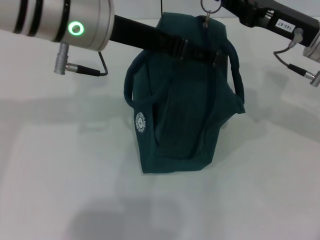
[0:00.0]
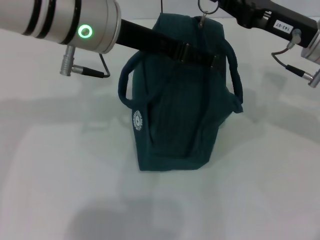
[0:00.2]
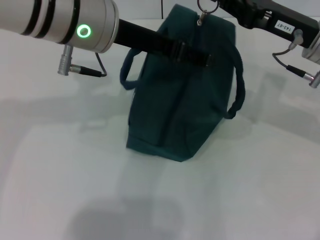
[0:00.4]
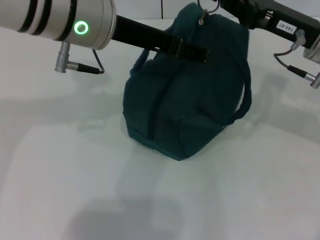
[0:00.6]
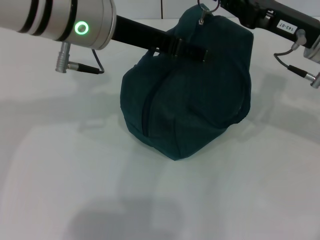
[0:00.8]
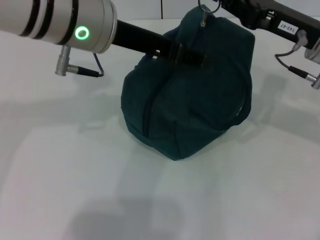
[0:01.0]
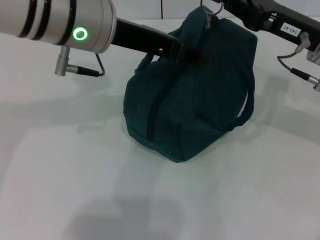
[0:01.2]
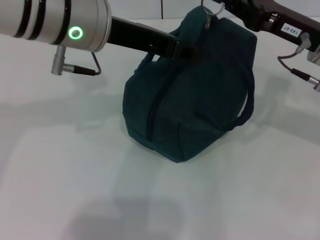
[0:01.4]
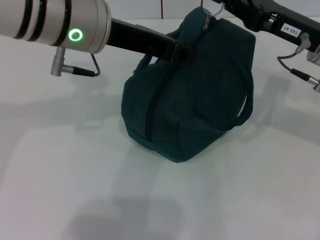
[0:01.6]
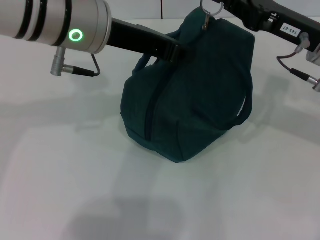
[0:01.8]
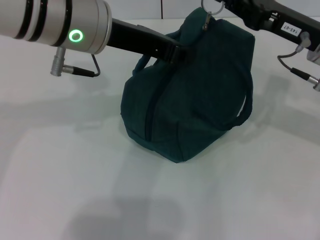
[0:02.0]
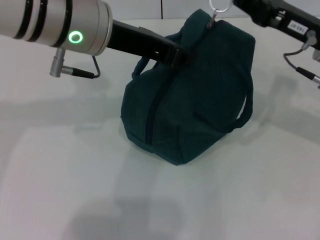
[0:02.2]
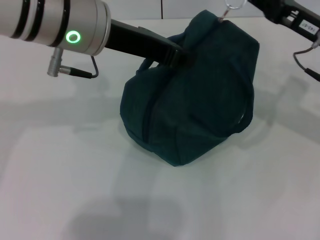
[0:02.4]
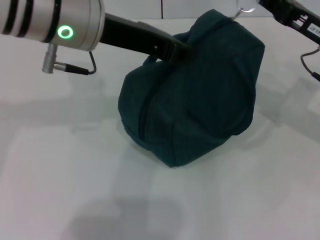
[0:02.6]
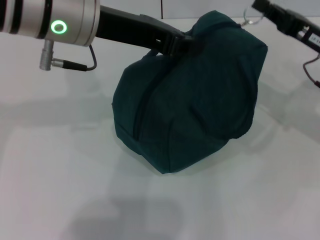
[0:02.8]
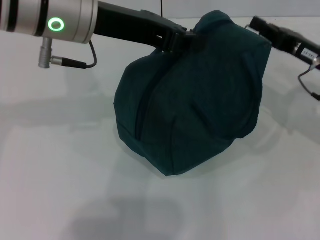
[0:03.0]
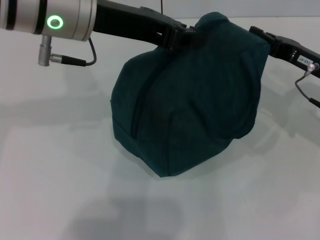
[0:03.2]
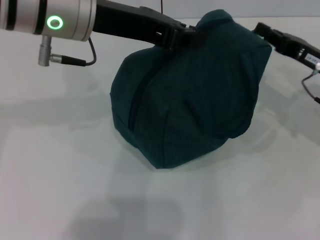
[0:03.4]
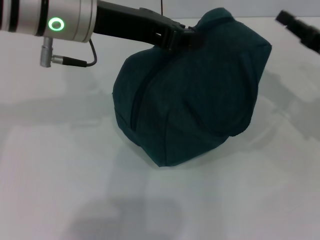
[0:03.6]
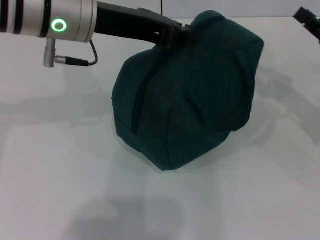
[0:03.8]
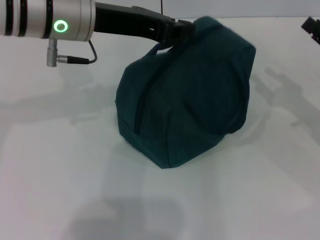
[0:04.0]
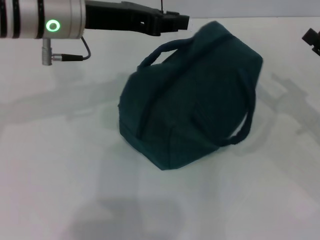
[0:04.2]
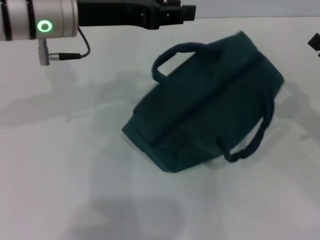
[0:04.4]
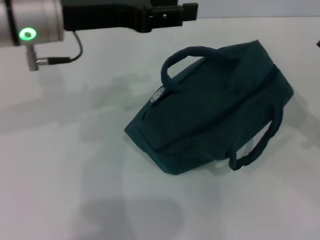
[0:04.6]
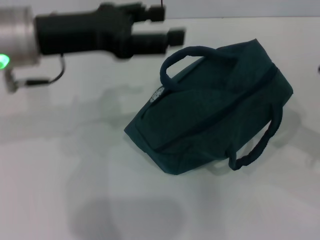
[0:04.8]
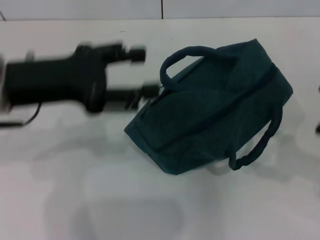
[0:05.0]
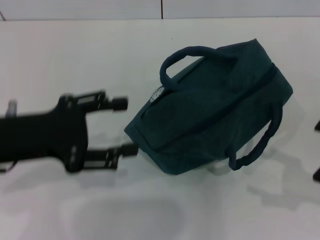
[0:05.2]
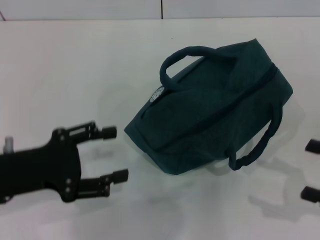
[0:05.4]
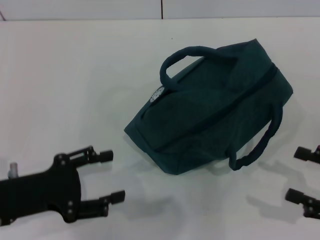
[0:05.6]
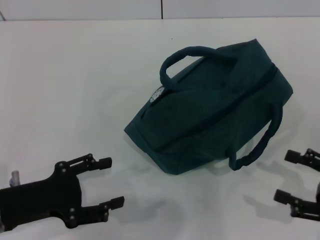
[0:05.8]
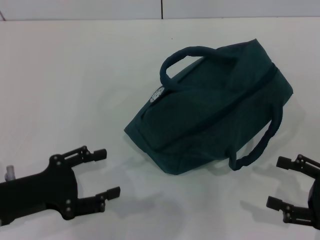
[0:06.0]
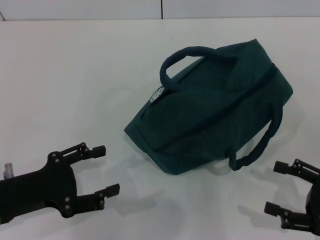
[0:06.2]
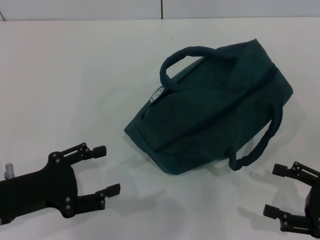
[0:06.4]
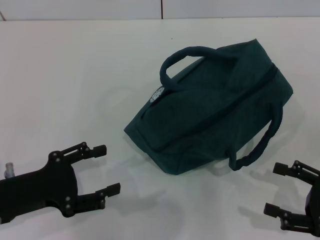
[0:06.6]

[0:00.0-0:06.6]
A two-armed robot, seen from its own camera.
Step, 0:00.0 to 0:03.4: Zip up the lunch bag with your right hand.
Step, 0:03.6 to 0:04.0: Hold the lunch bag with your left hand.
0:00.0 to 0:01.6: The left gripper closes.
0:01.6 to 0:03.2: The right gripper is displaced downward by approximately 5 cm; the left gripper closes up.
0:03.2 to 0:05.0: The right gripper heads backward and to the right, covering about 15 cm, and opens its fingers, while the left gripper travels to the left, downward and backward by some 15 cm, and opens up.
0:05.0 to 0:06.6: The right gripper travels downward by about 10 cm. The left gripper heads downward and backward, covering some 15 cm.

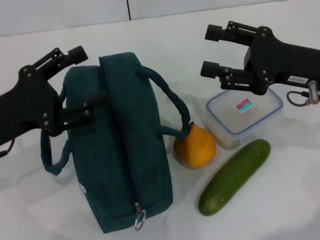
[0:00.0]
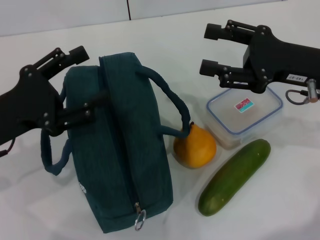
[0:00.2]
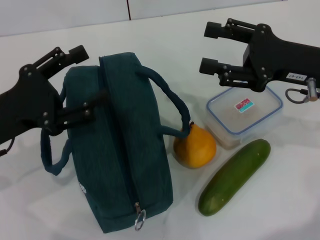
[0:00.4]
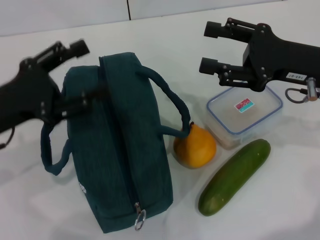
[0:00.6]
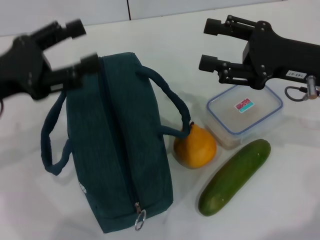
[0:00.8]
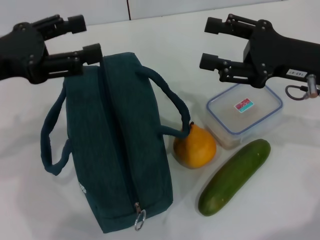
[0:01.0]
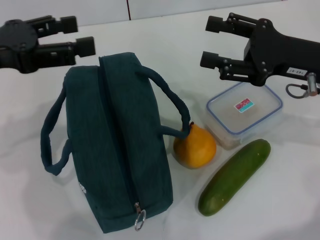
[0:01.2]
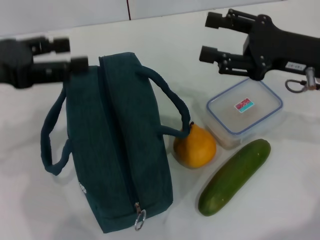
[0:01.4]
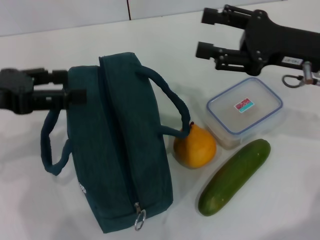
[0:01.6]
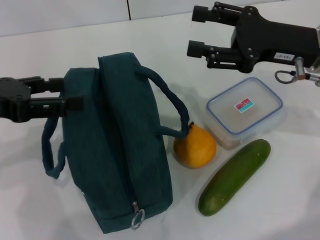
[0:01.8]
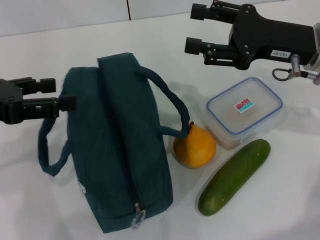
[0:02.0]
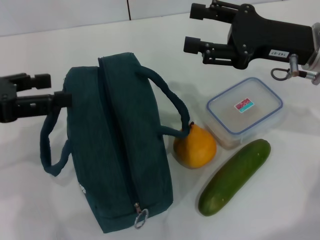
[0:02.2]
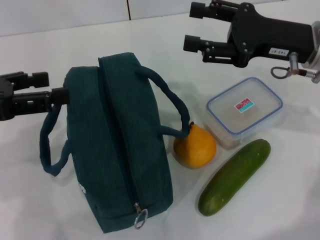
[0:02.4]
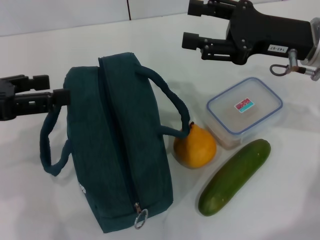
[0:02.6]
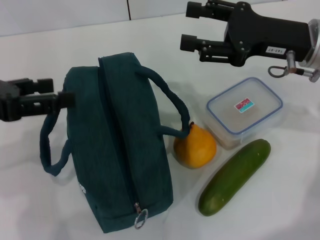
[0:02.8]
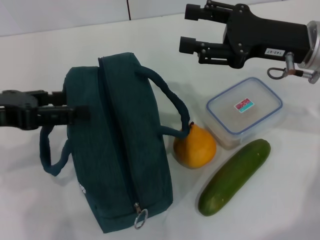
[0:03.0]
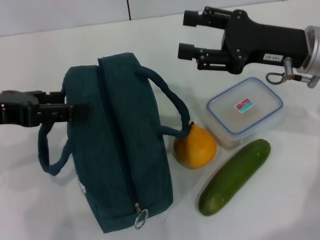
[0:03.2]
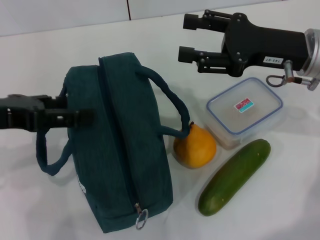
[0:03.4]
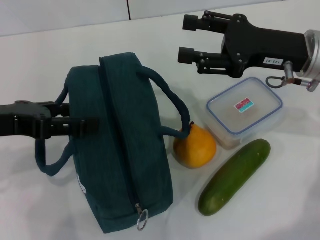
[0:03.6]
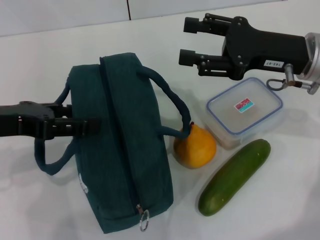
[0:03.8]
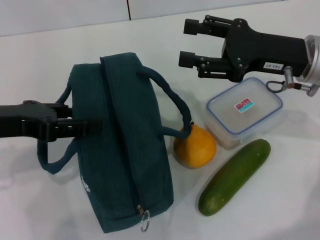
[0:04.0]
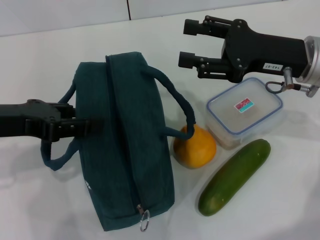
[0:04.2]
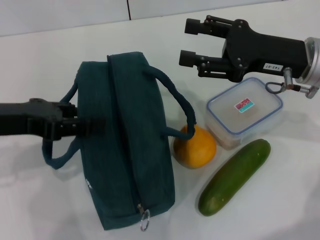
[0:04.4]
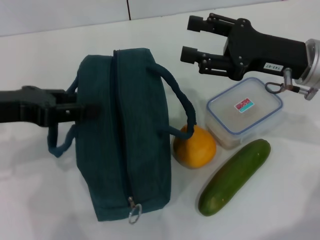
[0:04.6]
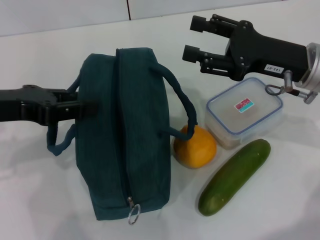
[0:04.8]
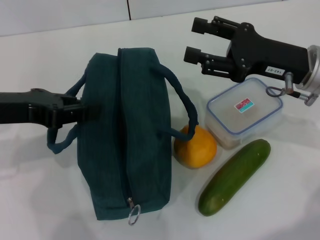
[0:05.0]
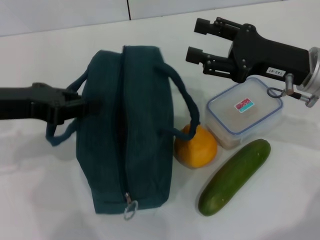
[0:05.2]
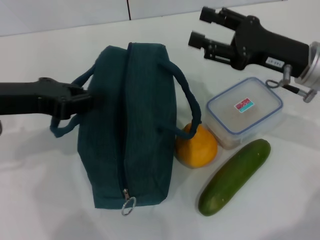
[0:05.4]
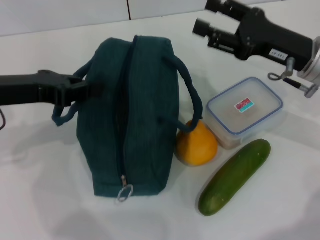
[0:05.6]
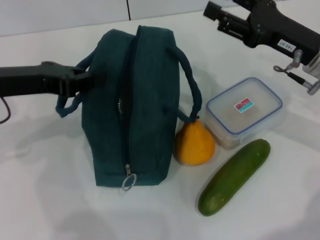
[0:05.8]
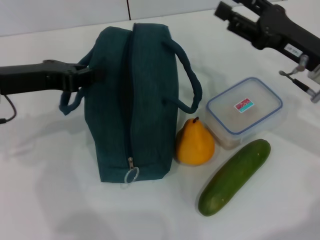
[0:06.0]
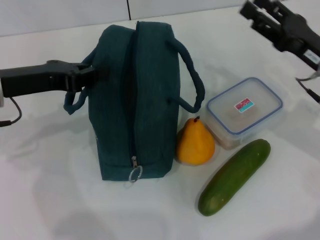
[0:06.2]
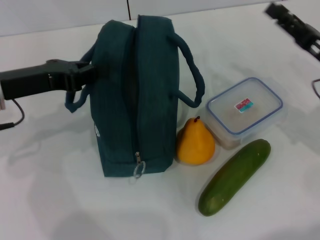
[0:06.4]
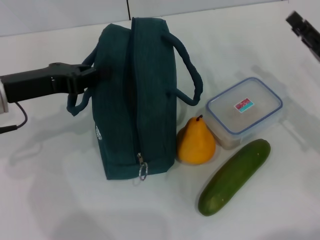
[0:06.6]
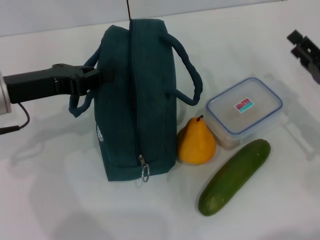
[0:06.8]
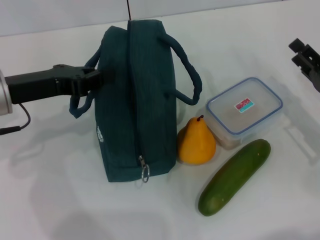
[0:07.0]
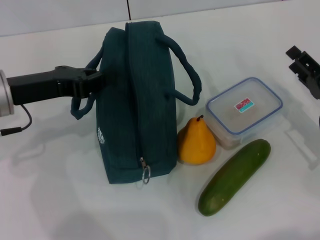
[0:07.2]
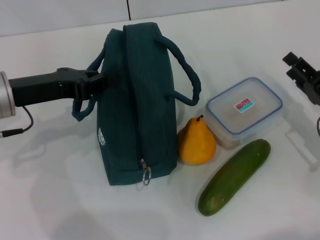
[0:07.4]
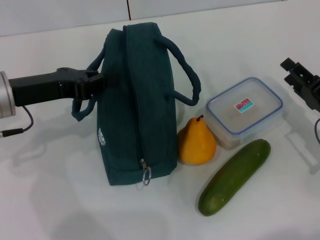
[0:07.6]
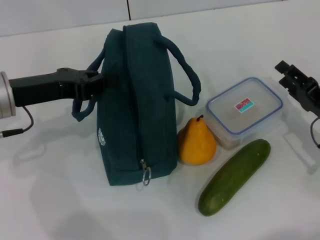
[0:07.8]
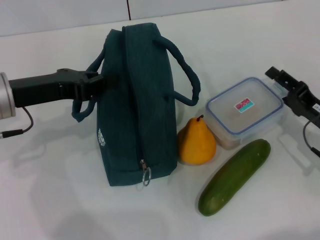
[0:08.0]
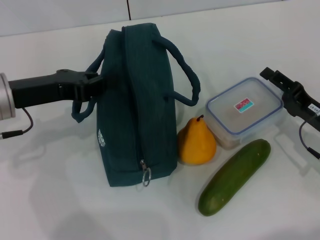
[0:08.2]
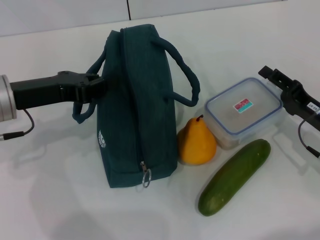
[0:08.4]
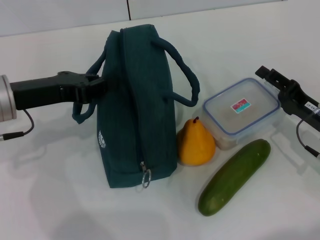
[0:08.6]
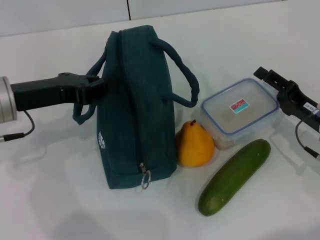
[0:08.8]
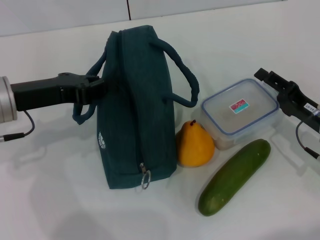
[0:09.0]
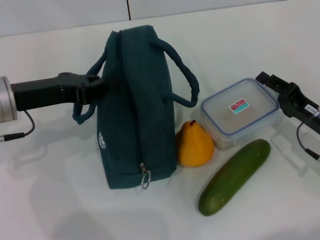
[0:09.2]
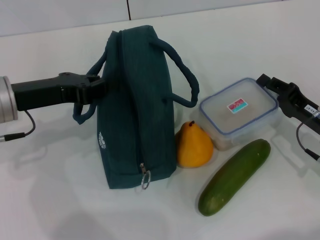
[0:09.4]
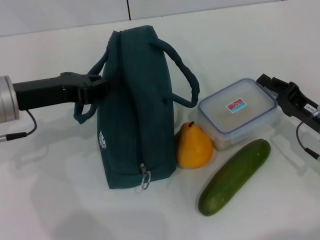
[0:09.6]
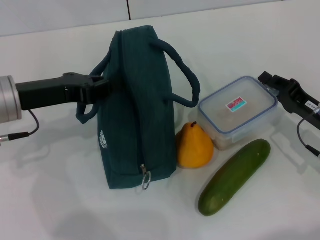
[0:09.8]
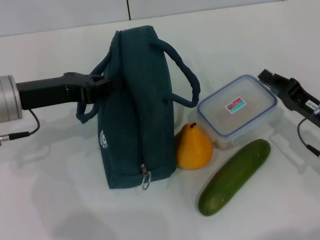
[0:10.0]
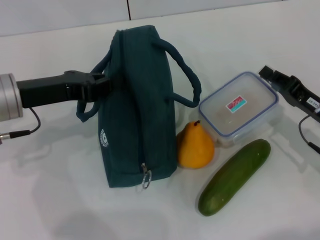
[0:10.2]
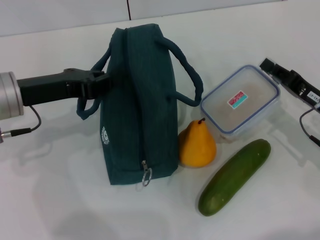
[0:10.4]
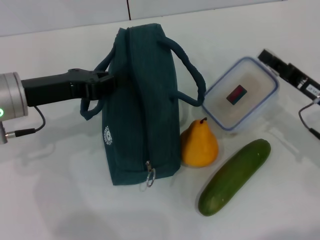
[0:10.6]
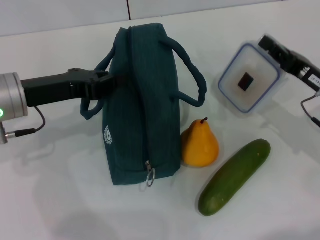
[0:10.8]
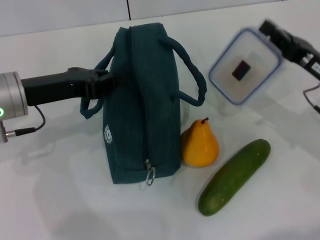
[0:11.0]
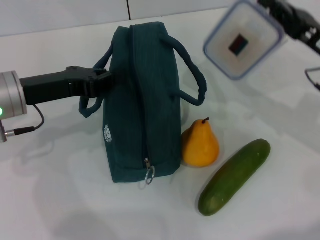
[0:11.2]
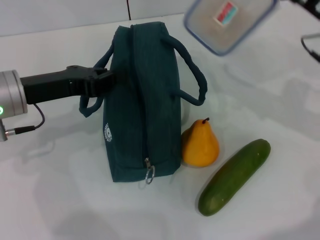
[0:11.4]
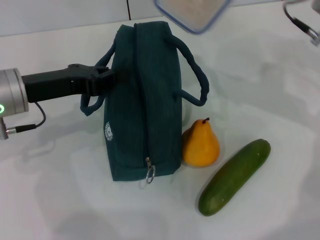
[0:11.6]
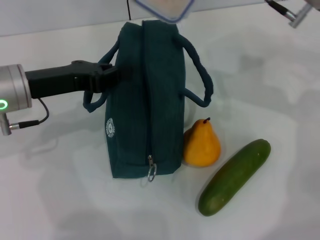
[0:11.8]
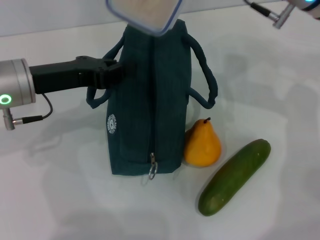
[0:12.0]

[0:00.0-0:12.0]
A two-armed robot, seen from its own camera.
Step, 0:00.0 to 0:05.4: Hold the lunch bag with your left hand.
Step, 0:05.6 to 0:10.0: Pick up the lunch box with your right hand.
0:00.0 to 0:01.6: The left gripper goes roughly 10 cm upward.
0:01.6 to 0:03.0: There are only small adjustments of the grippers.
0:03.0 to 0:04.4: The left gripper closes its fingers.
0:04.4 to 0:06.0: The left gripper travels forward by approximately 5 cm, and closes its fingers.
0:06.0 to 0:07.6: The right gripper moves downward, backward and to the right, some 15 cm.
0:07.6 to 0:09.0: There are only small adjustments of the grippers.
0:09.0 to 0:10.4: The right gripper closes up.
0:10.4 to 0:12.0: The right gripper shifts approximately 25 cm upward, forward and to the left.

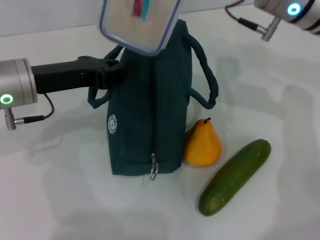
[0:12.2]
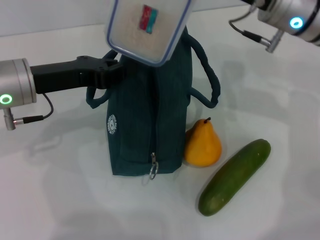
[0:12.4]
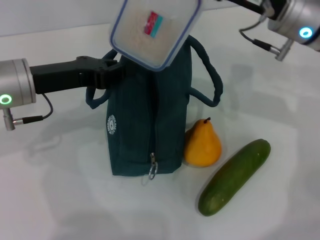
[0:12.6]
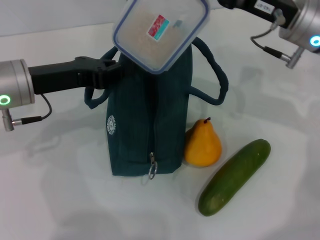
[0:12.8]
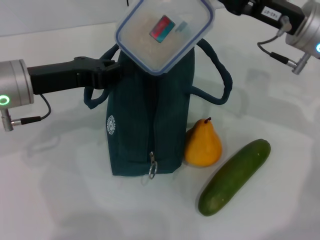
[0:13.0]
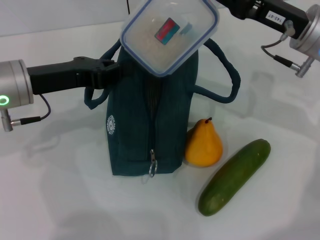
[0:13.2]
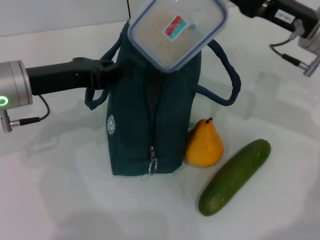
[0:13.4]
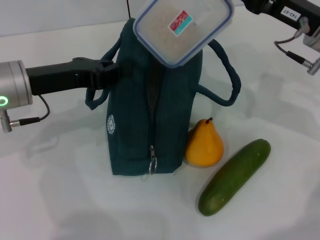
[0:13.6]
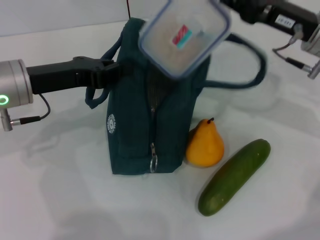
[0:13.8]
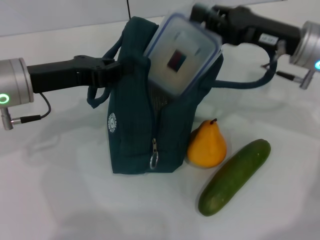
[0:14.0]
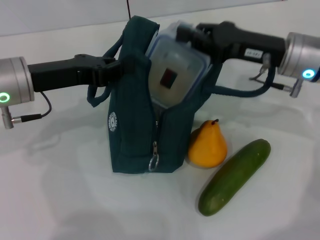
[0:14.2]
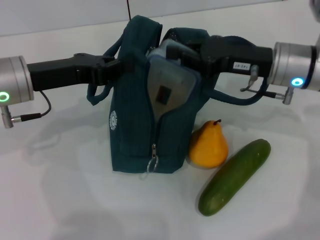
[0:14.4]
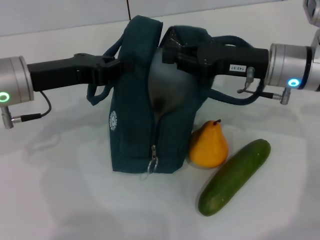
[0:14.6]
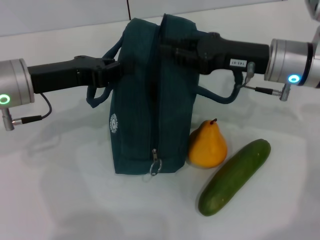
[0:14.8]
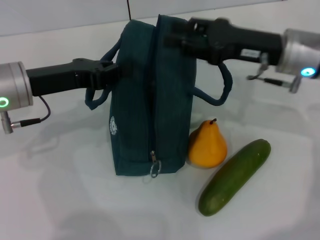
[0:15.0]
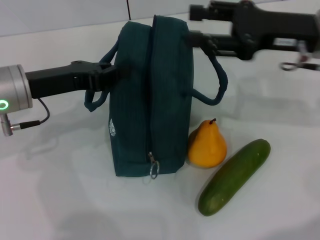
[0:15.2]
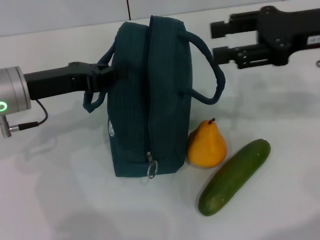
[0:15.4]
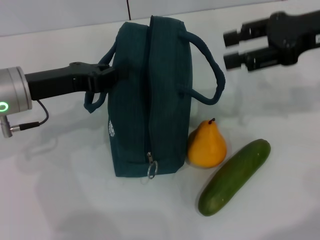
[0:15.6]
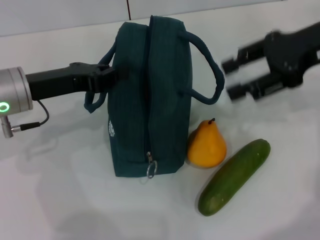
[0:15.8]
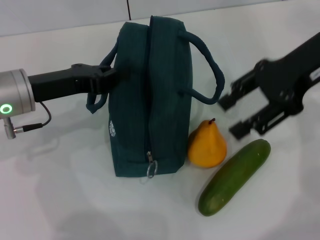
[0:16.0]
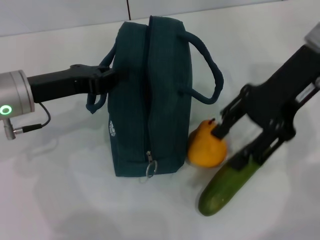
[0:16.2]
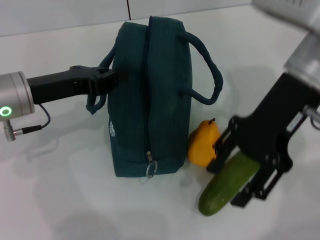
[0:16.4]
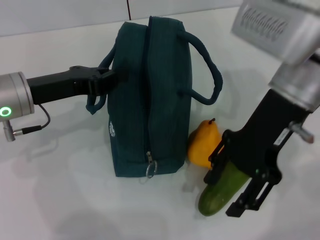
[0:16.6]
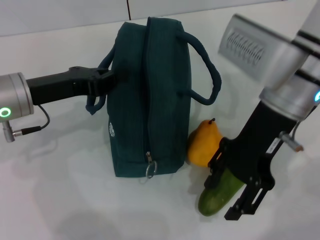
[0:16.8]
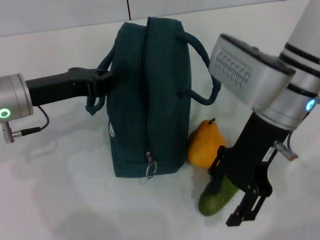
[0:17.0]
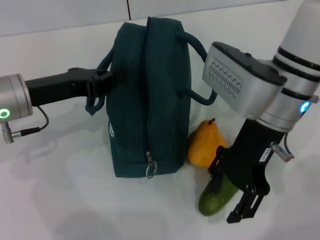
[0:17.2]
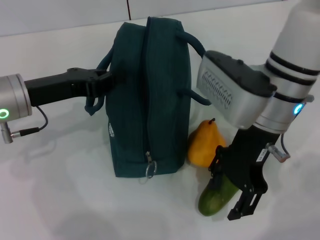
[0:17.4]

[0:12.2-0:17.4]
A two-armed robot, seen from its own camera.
Step, 0:12.2 to 0:14.8: Place the lunch box into the lunch bag with your right hand.
0:12.2 to 0:14.0: The right gripper moves downward and to the right, some 10 cm.
0:14.0 to 0:15.6: The right gripper heads upward, covering roughly 10 cm, and opens.
0:15.6 to 0:17.4: The right gripper goes some 15 cm to the left.
